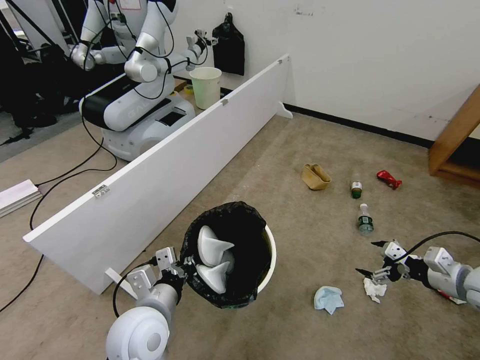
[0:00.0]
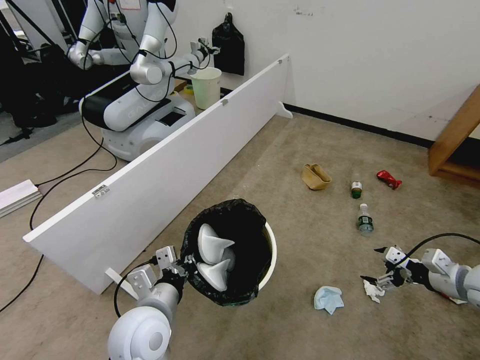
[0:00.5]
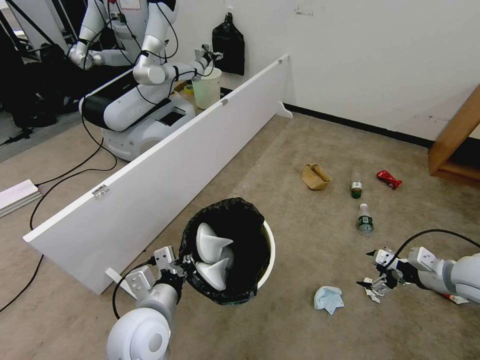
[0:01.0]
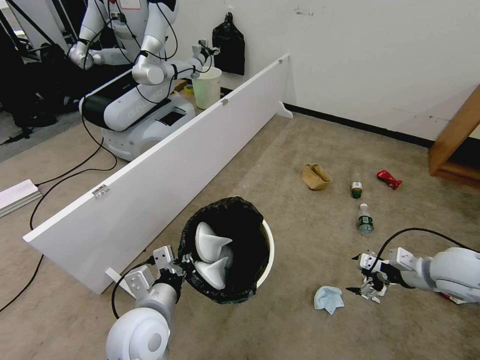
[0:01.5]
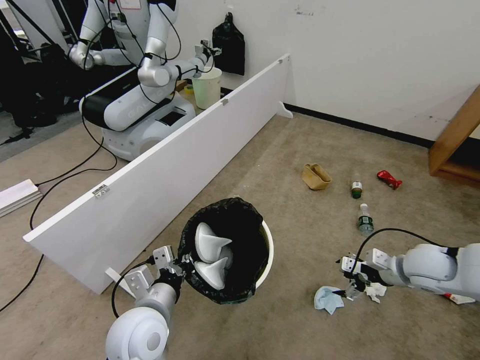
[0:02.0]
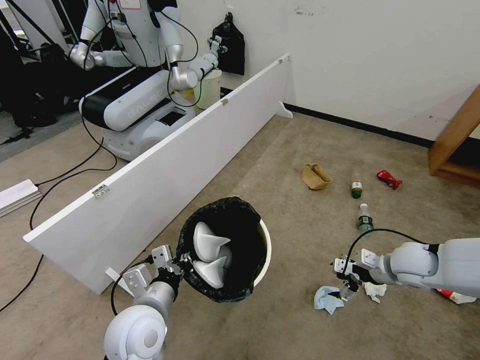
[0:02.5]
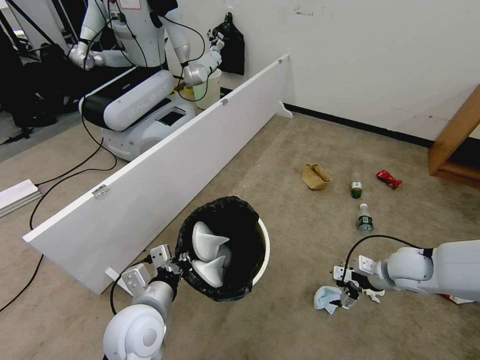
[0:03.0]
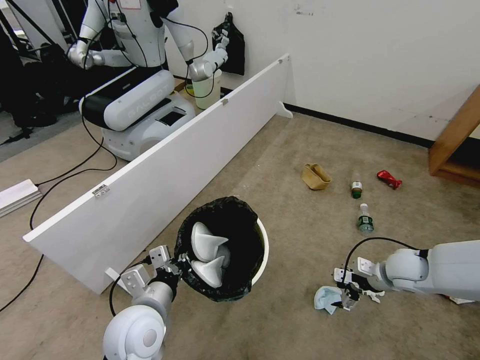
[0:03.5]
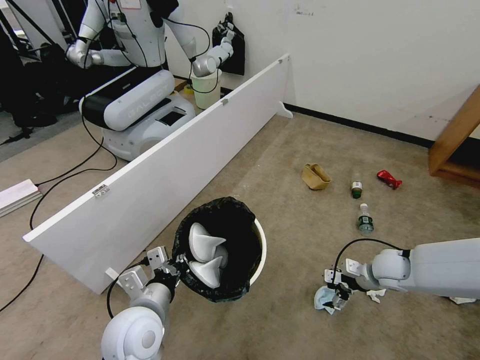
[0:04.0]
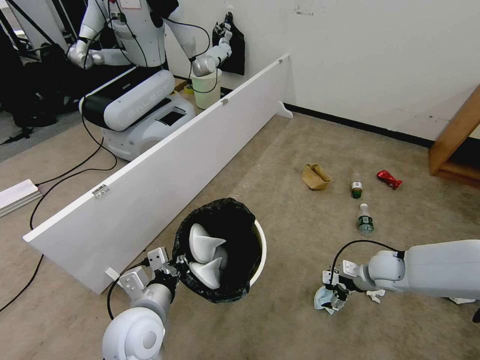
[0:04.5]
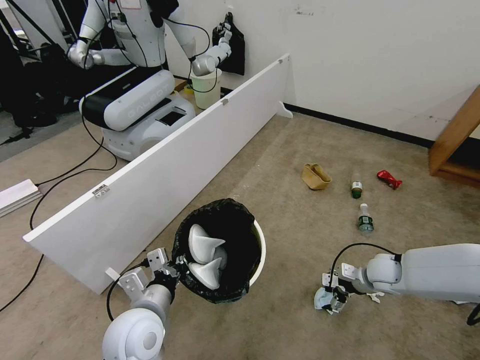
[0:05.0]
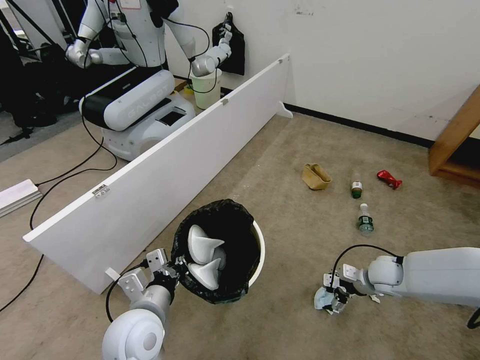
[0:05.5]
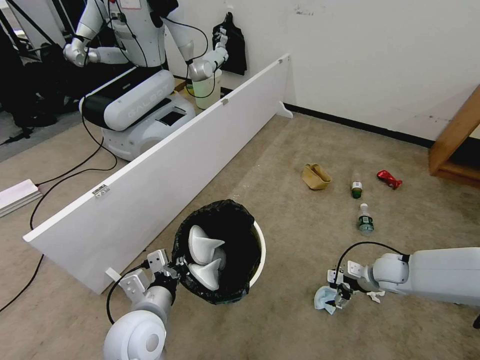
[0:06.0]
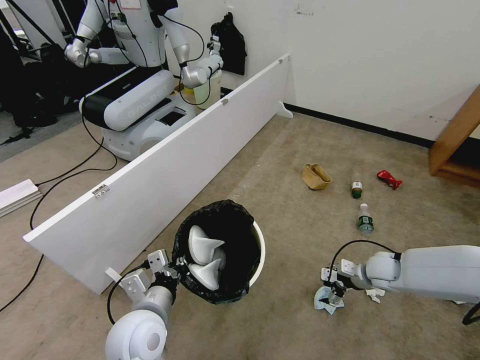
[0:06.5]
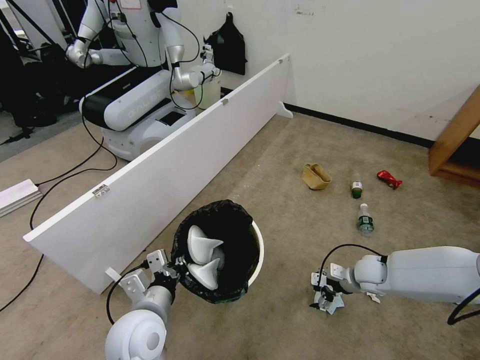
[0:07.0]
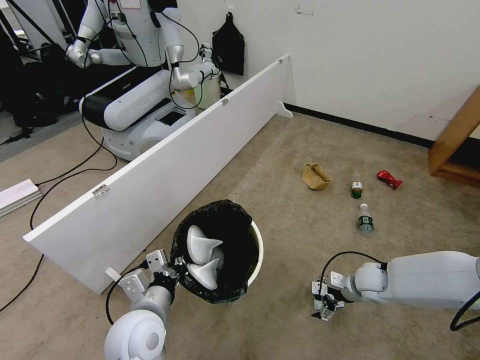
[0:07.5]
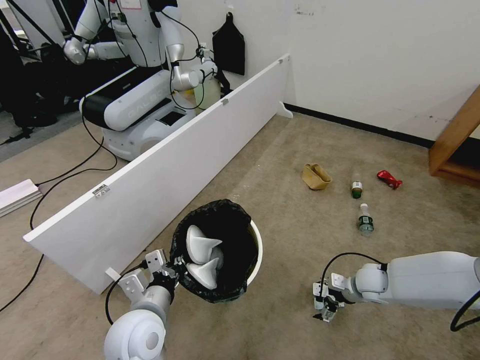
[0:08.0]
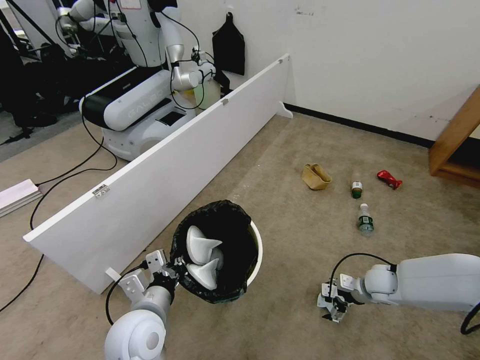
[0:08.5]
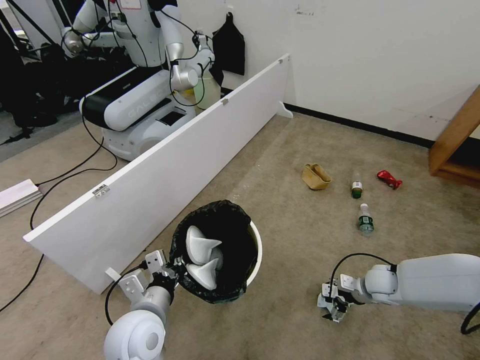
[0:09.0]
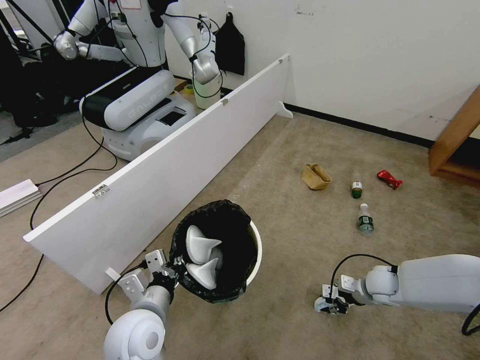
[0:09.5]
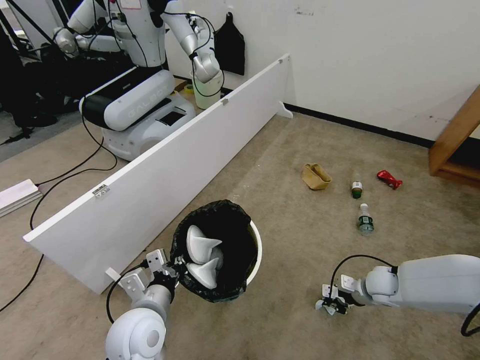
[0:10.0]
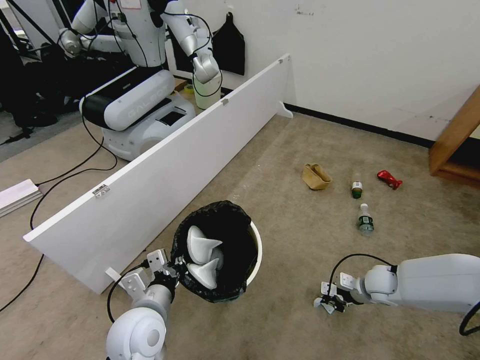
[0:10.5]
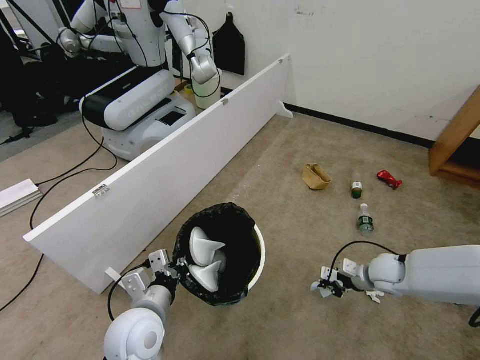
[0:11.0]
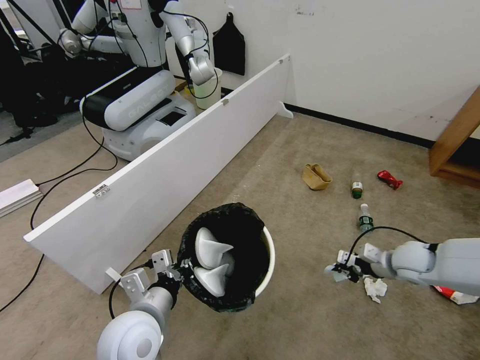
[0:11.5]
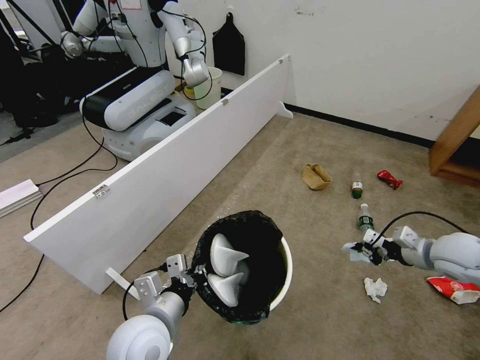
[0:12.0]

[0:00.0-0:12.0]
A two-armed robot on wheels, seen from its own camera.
Task of the whole recording: Pick up the trash bin, then pick up the garbage from the floor and place it into the trash bin.
0:00.0 to 0:02.0: The right gripper goes roughly 10 cm to the left and forward.
0:02.0 to 0:04.0: The right gripper goes about 10 cm downward.
0:04.0 to 0:06.0: The grippers make only small movements.
0:06.0 to 0:08.0: The right gripper ends up roughly 5 cm from where it was.
0:08.0 to 0:10.0: The right gripper closes.
0:10.0 to 0:12.0: The right gripper heads upward and to the right, covering about 20 cm.

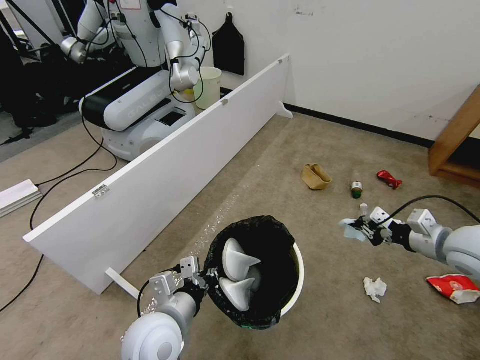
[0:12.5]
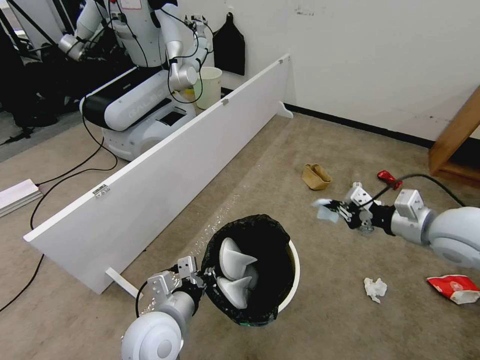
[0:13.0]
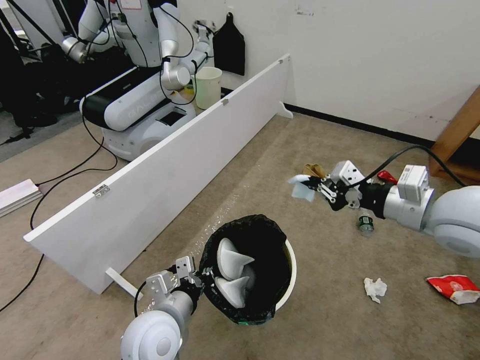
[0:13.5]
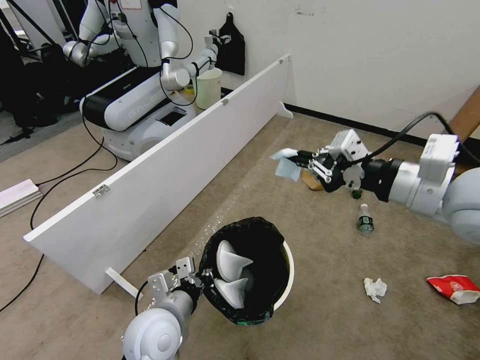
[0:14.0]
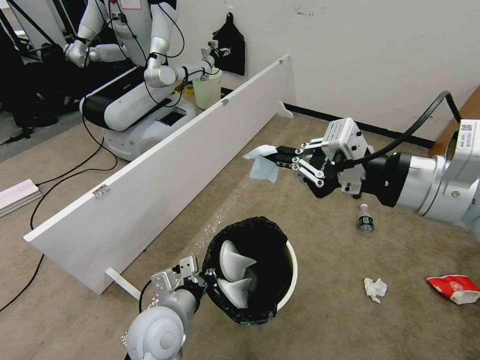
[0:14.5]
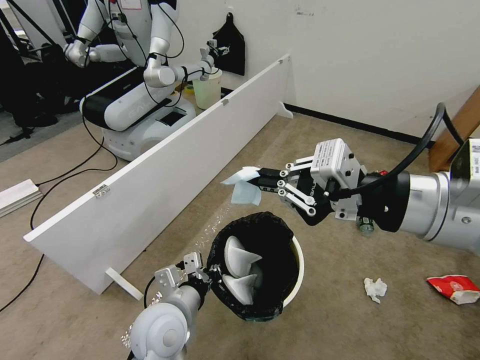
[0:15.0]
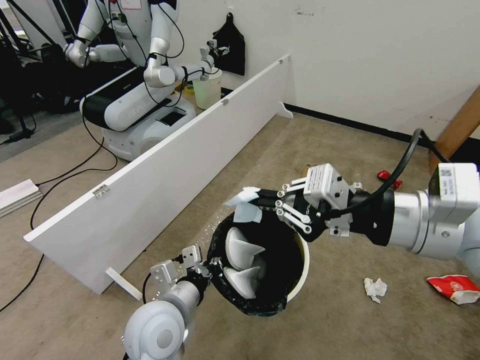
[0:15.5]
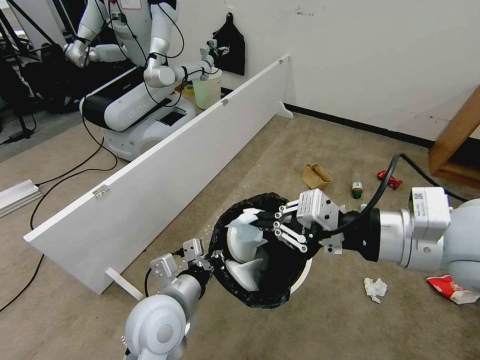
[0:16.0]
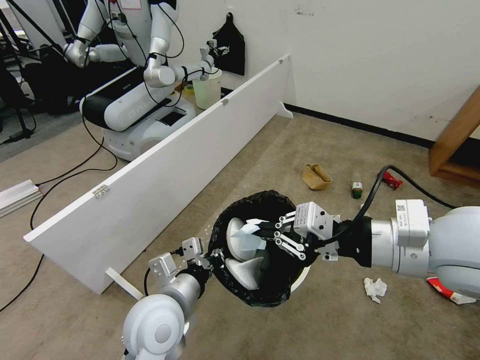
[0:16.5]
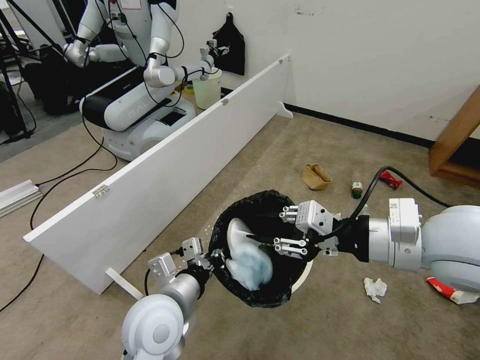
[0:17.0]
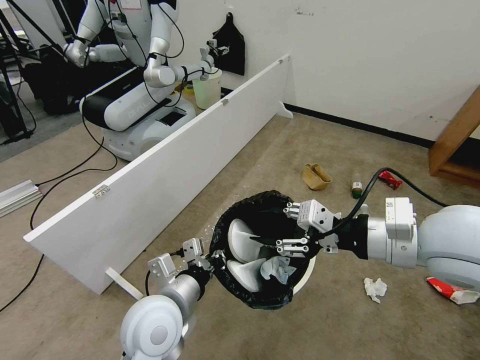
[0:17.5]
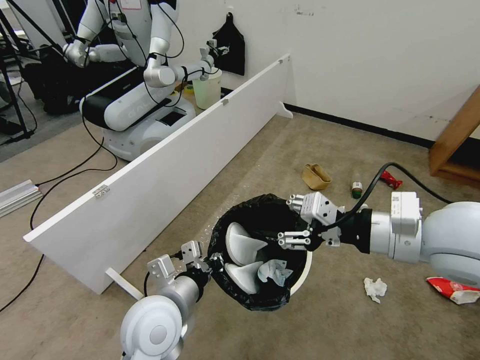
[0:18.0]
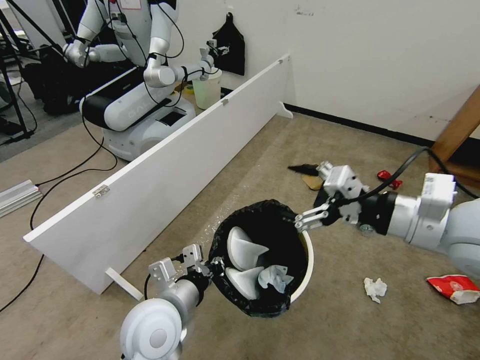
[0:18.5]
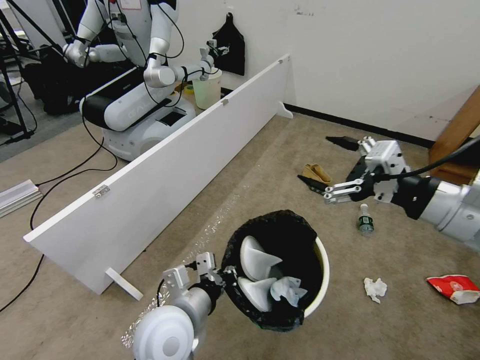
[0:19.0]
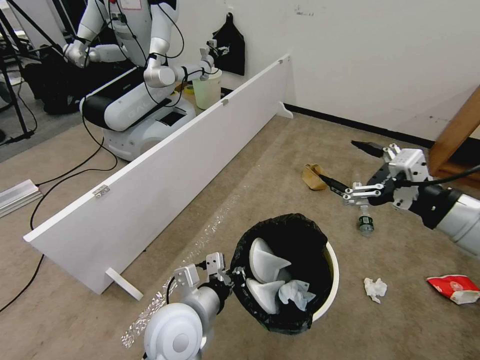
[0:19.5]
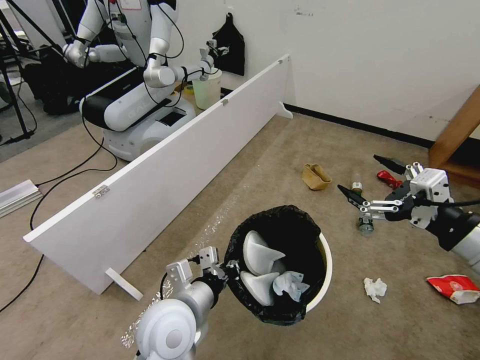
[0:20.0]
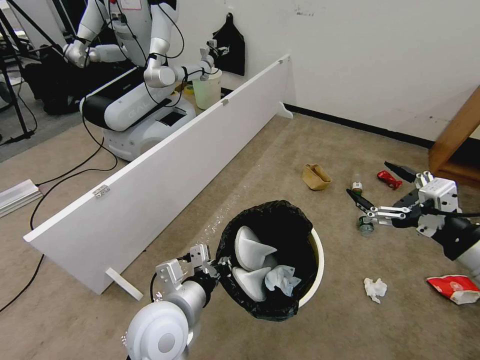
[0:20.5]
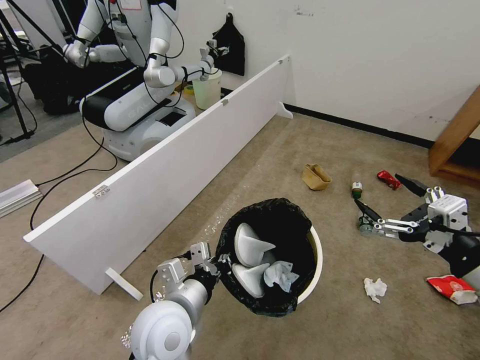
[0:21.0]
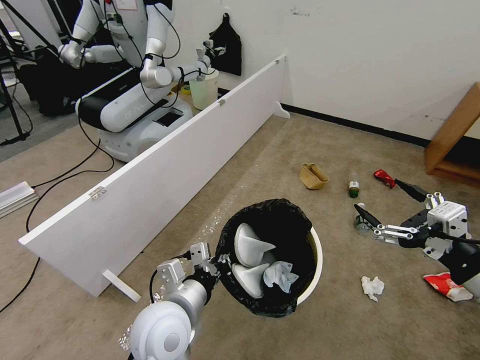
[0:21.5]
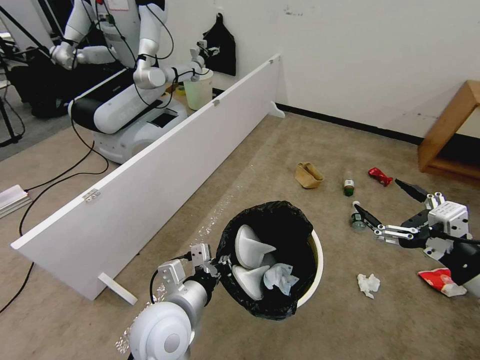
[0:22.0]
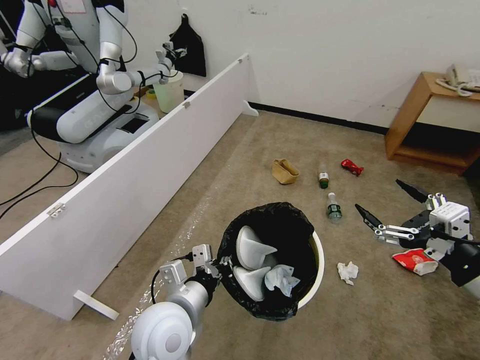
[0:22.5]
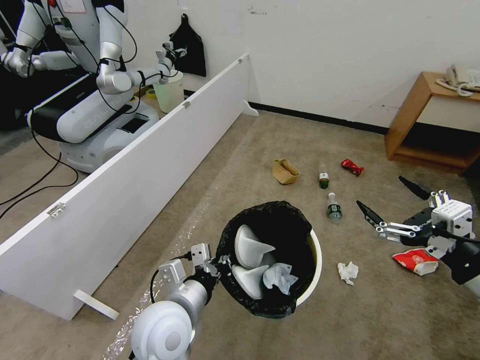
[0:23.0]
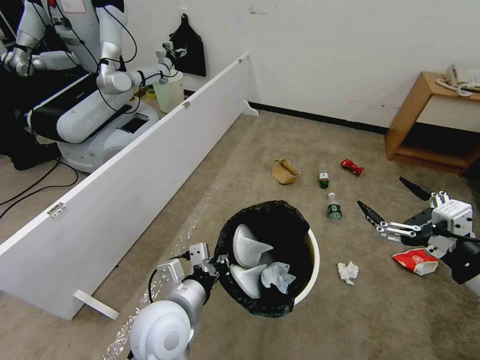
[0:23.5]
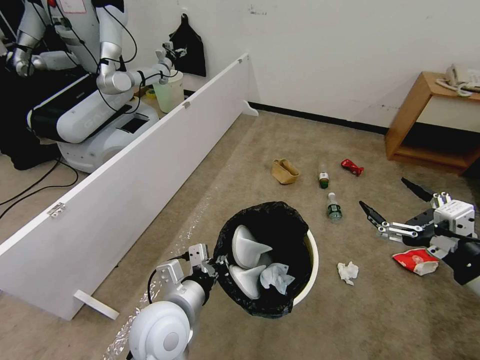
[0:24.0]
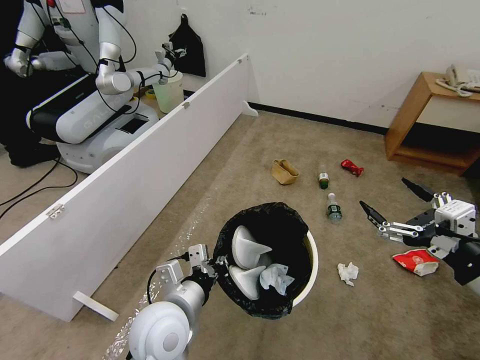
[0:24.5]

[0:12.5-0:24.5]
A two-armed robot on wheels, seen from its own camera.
Task of the whole recording: Pick up the trash bin, then pick up the garbage from the floor and place it into the trash bin.
0:12.5 to 0:14.5: The right gripper shifts approximately 30 cm upward and to the left.
0:14.5 to 0:16.5: The right gripper shifts approximately 5 cm downward; the left gripper heads upward, covering about 5 cm.
0:16.5 to 0:18.5: The right gripper opens up.
0:18.5 to 0:20.5: The right gripper goes some 15 cm to the right, backward and downward.
0:22.5 to 0:24.5: Both grippers stay put.

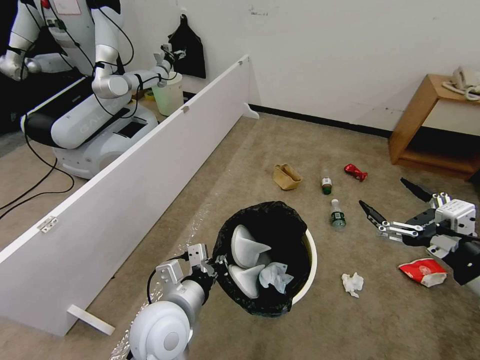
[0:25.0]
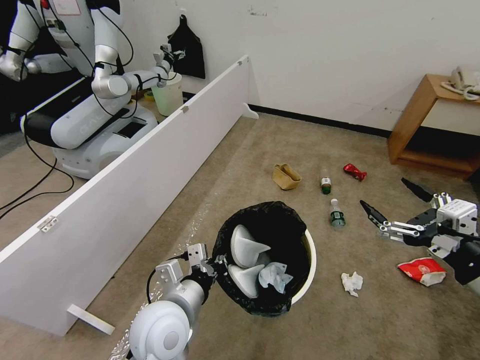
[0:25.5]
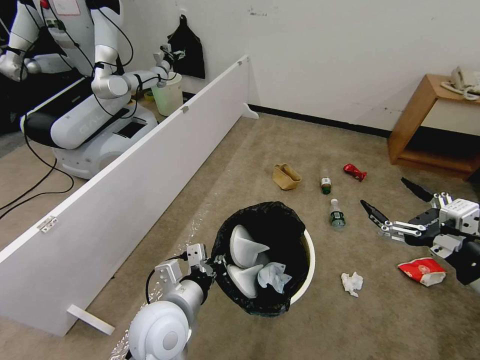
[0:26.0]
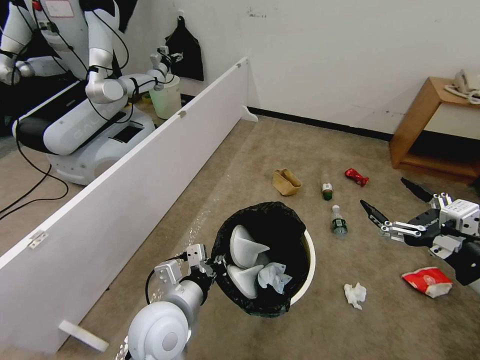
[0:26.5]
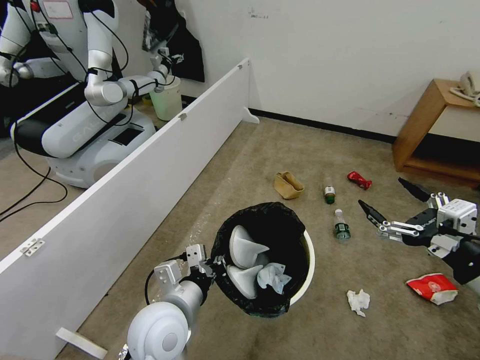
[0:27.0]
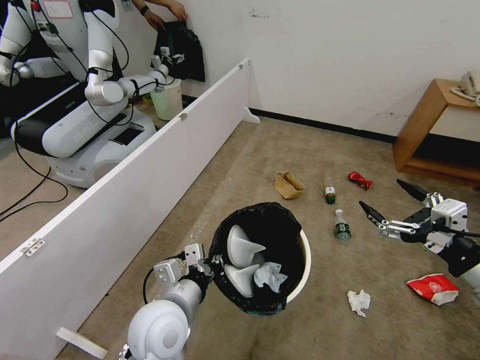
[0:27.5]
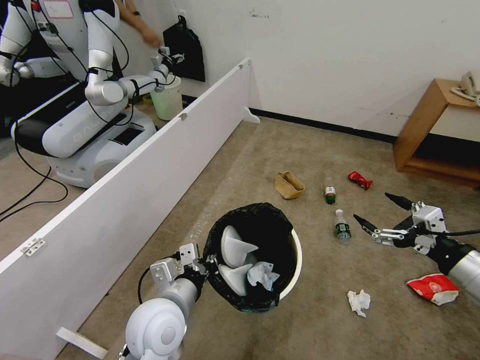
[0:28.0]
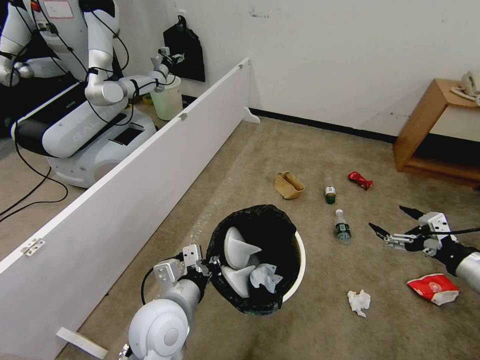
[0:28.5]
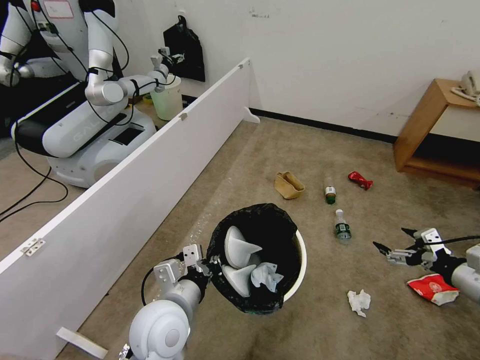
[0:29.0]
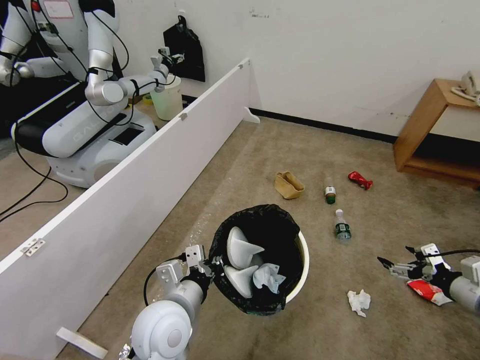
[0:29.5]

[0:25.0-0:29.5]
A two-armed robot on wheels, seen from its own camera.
Task of the whole recording: Pick up the trash bin, then pick up the garbage from the floor and place it into the trash bin.
0:27.0 to 0:29.5: The right gripper shifts approximately 20 cm downward, to the right and forward.
